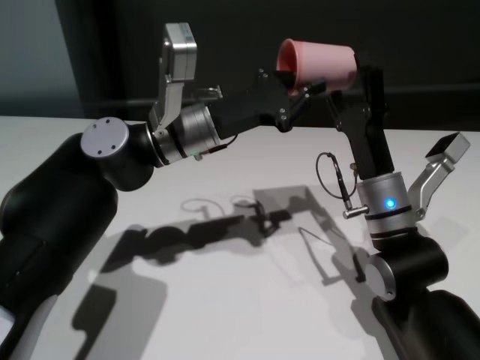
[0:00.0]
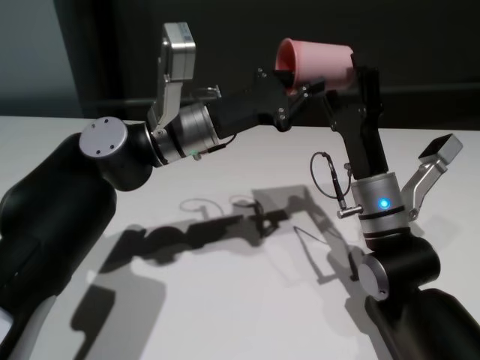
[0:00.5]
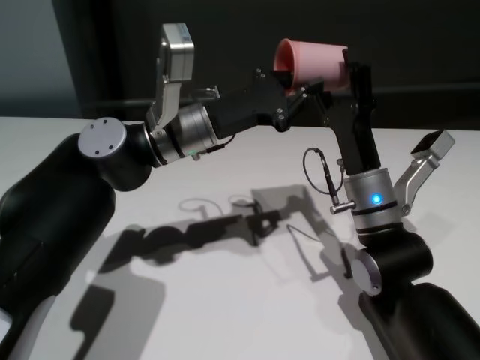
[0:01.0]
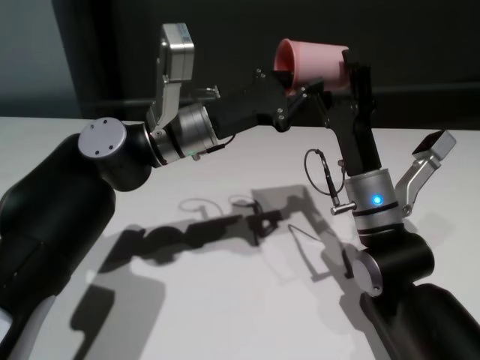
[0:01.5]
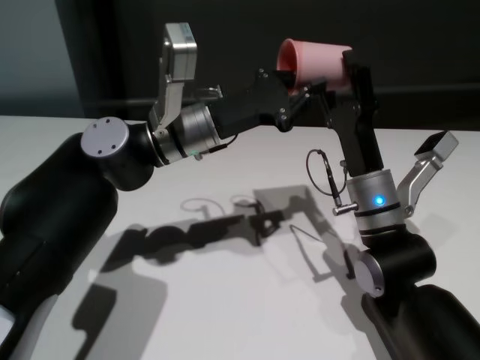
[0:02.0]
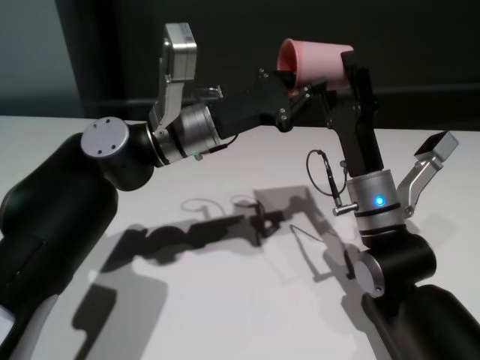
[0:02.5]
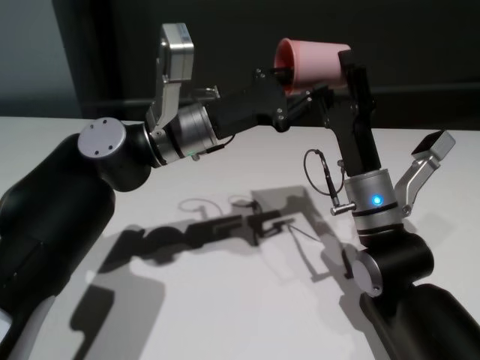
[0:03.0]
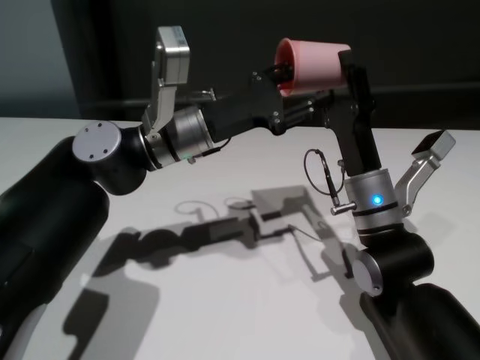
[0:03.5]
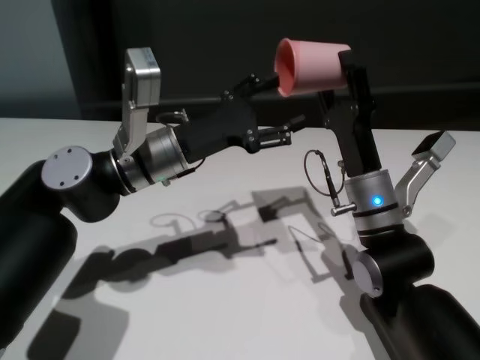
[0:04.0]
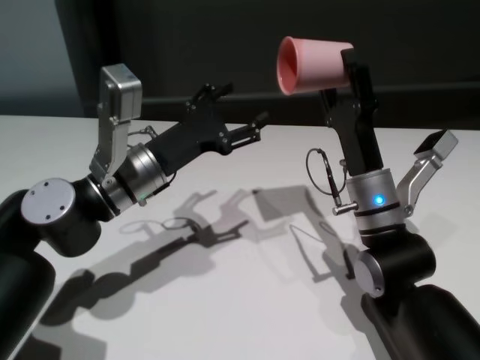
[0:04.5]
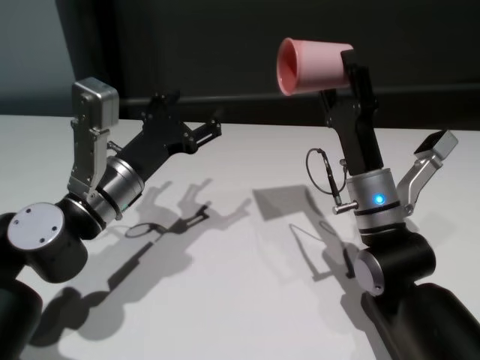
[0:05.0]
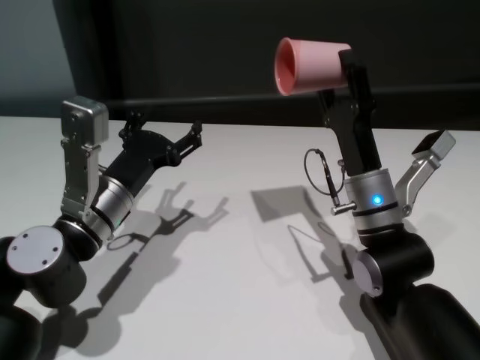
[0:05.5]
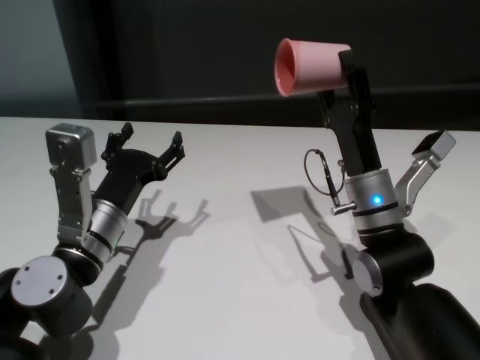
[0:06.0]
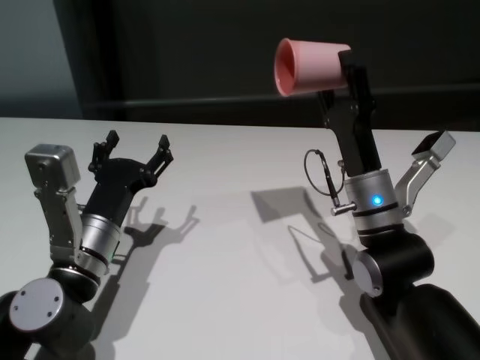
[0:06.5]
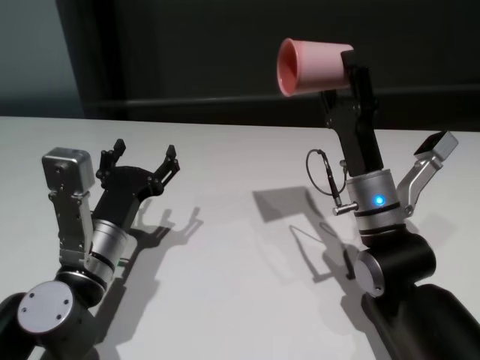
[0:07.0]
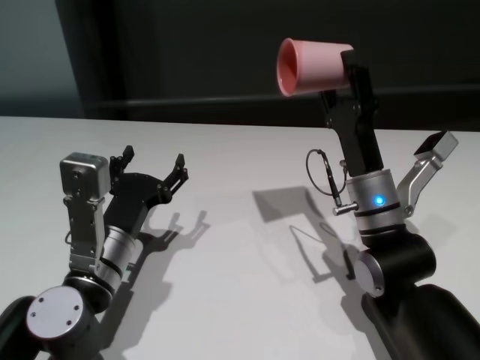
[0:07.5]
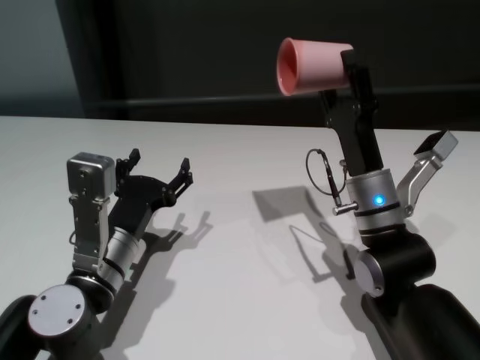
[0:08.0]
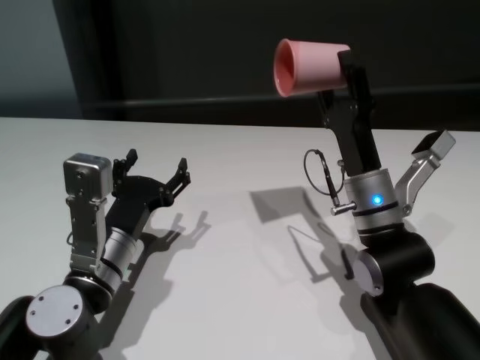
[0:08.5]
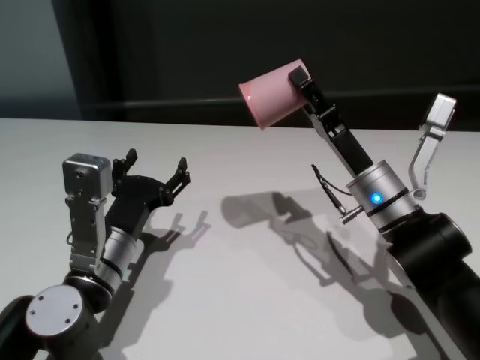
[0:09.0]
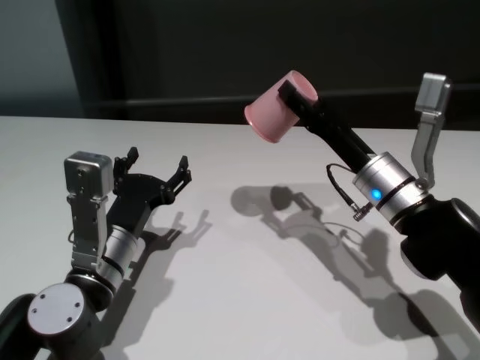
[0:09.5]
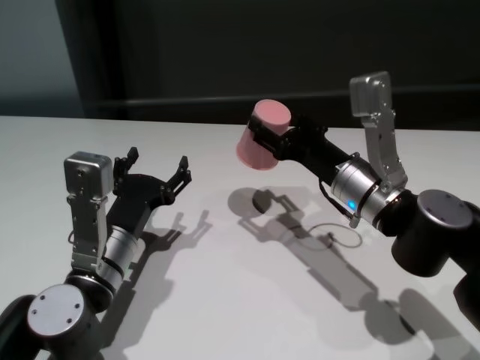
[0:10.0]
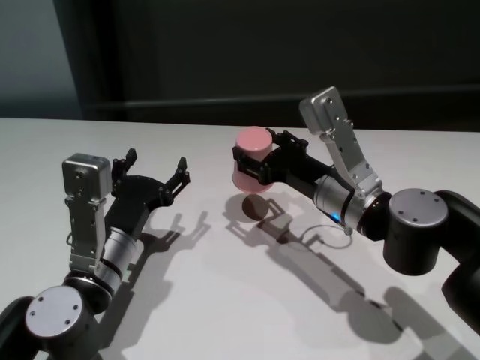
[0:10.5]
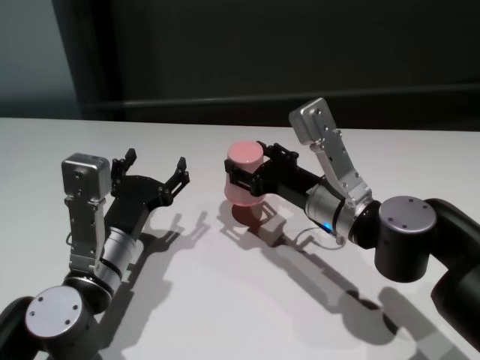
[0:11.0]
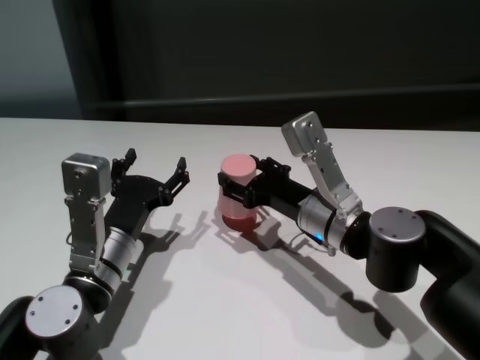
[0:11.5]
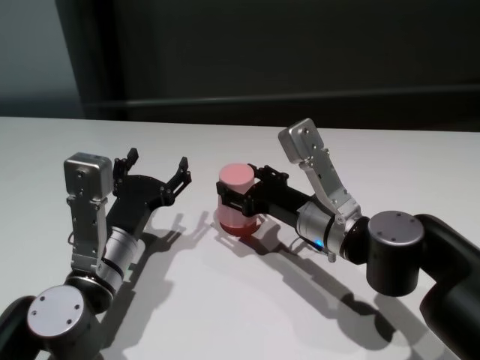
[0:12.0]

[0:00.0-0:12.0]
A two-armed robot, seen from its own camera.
Task of the whole recording: On the white table pick up the cup with one hand and transfer it to the other hand before turning it over.
Step, 0:00.0 to 0:04.0: Pass the cup to the right gripper.
